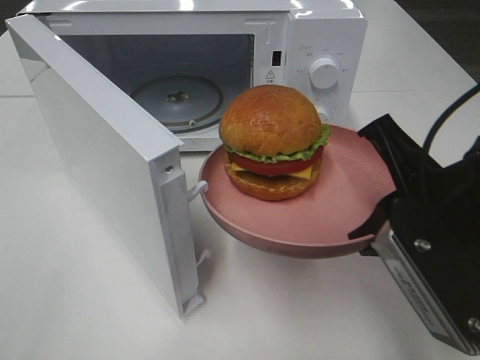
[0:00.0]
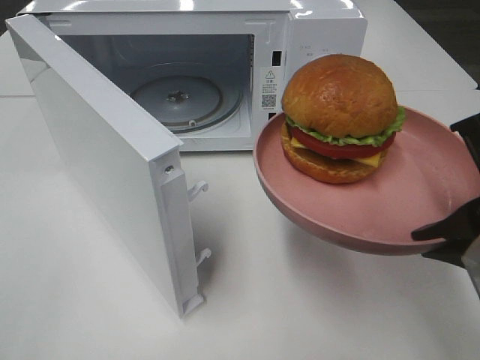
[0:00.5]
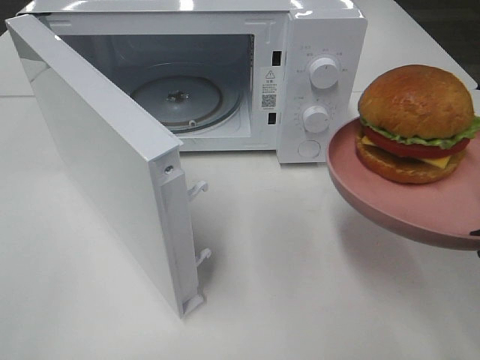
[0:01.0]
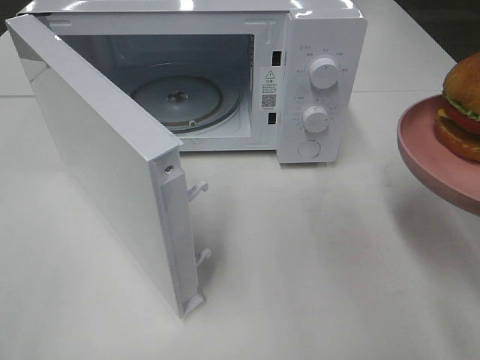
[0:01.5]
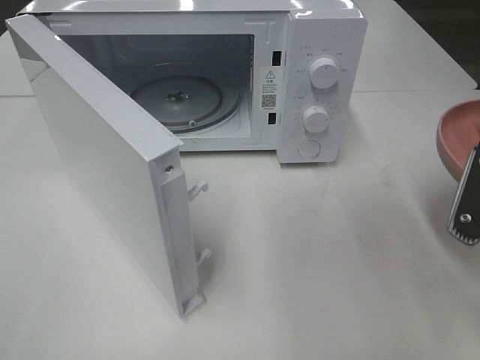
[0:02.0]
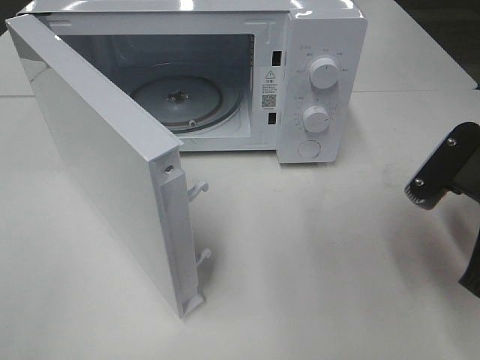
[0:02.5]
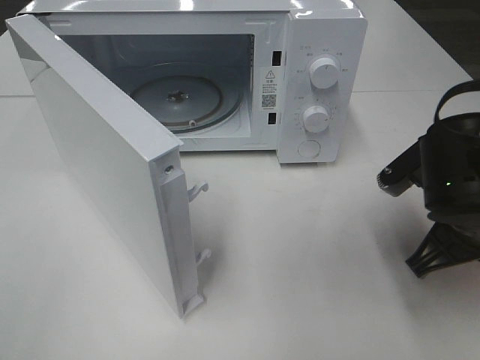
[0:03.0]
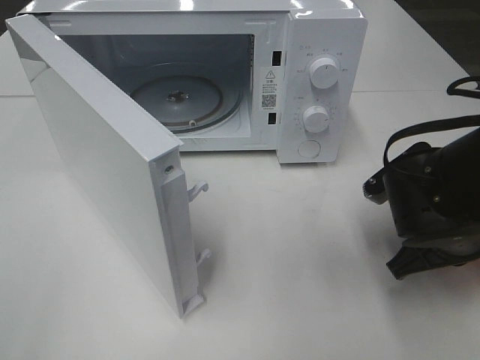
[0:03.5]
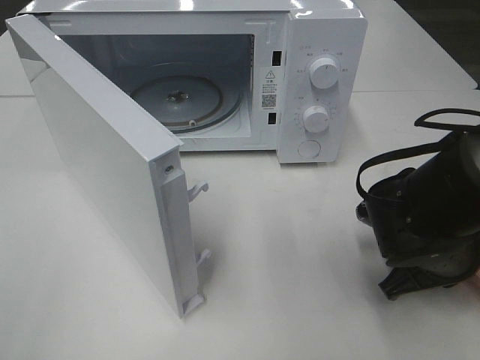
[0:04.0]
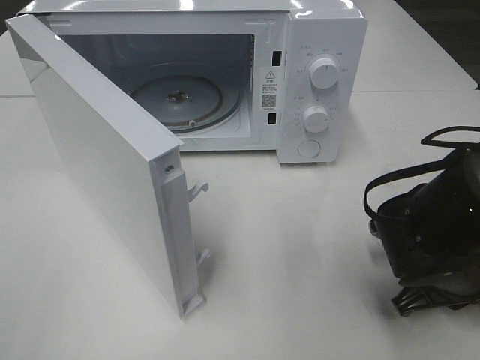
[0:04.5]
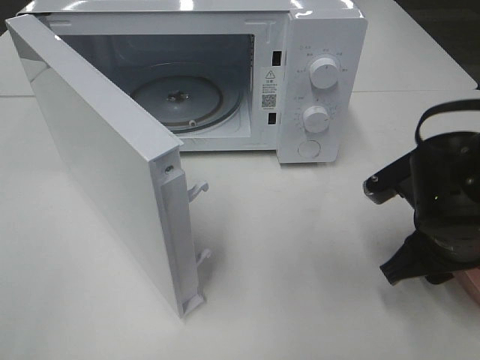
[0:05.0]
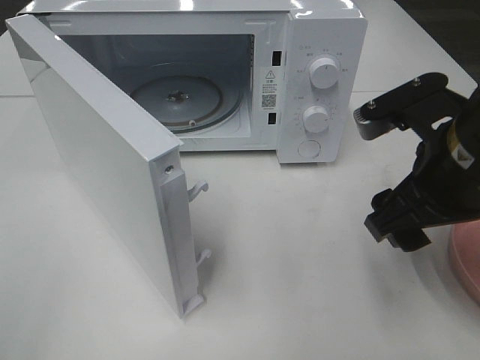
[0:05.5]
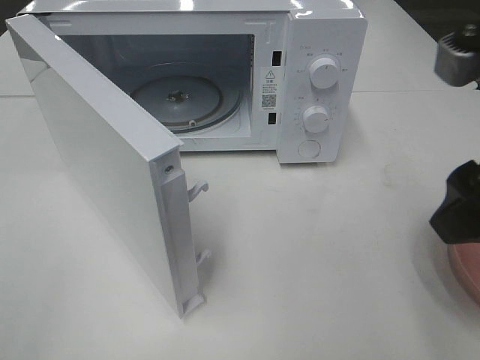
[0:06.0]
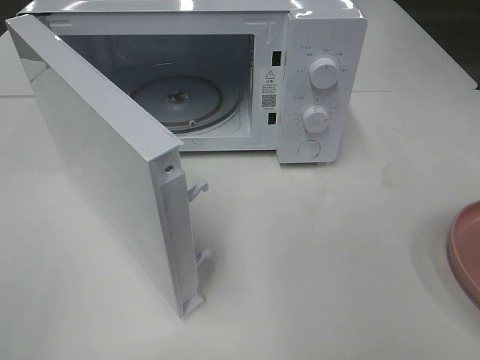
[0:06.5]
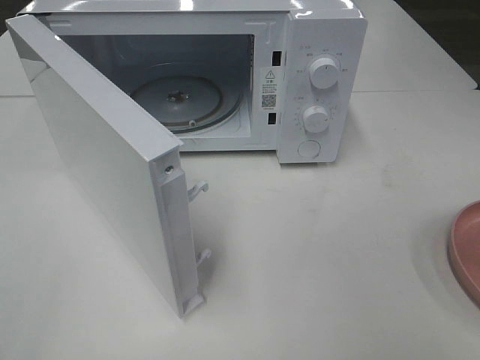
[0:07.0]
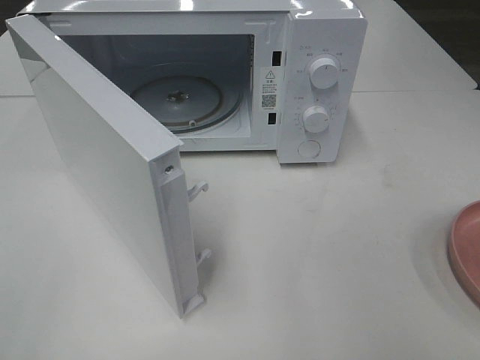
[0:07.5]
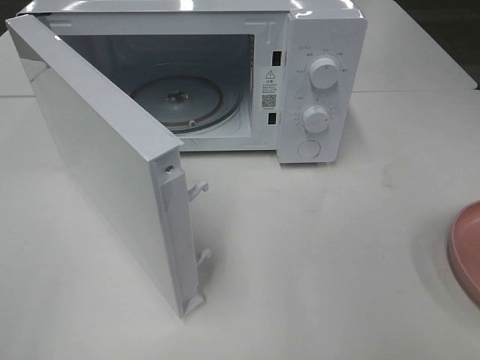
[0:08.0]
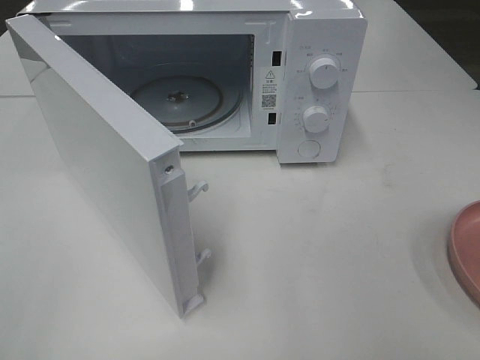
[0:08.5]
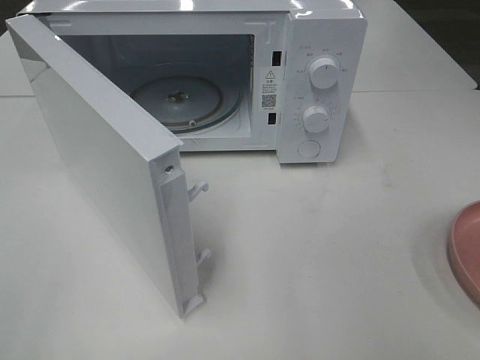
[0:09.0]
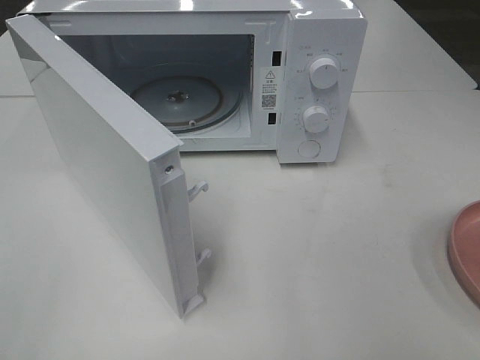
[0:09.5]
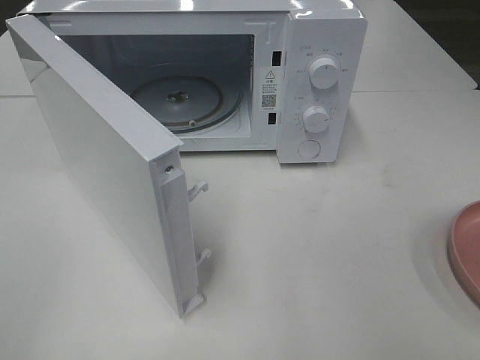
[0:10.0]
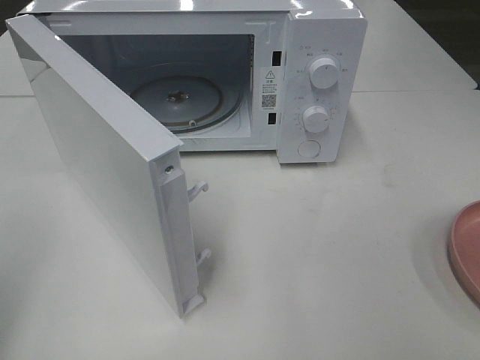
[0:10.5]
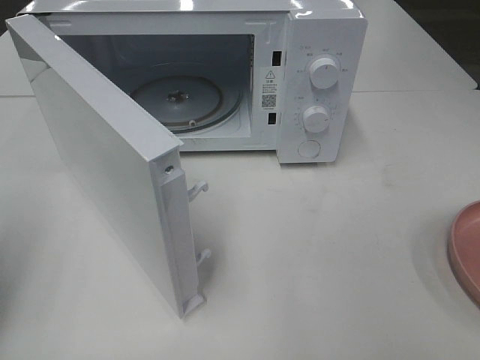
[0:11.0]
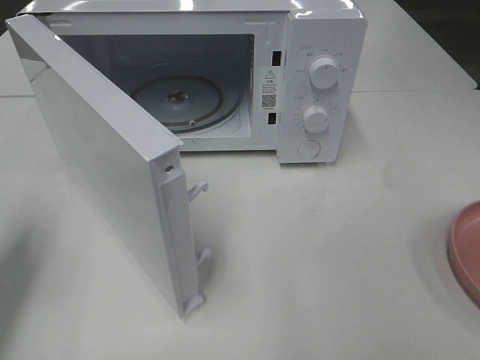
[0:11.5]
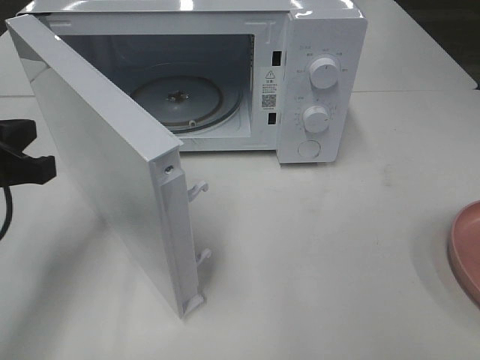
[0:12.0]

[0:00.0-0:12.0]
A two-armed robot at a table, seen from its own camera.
Task of the whole recording: Heat the burger.
Step, 0:00.0 to 0:04.5: Right hand: place the plate on the table.
0:00.0 to 0:02.0: The right gripper heads to the right, covering approximately 5 cm.
0:02.0 to 0:04.0: The right gripper heads downward and forward, covering approximately 15 cm.
0:04.0 to 0:06.0: The right gripper is displaced upward by approximately 20 cm, and opens its fingers.
0:06.0 to 0:08.0: The right gripper is displaced backward and to the right by about 20 cm.
0:10.0 to 0:12.0: The left gripper moves forward and downward, roughly 20 cm, and closes up.

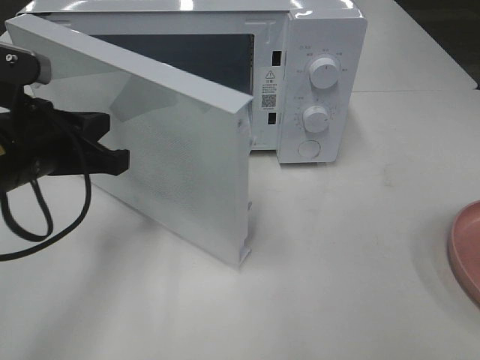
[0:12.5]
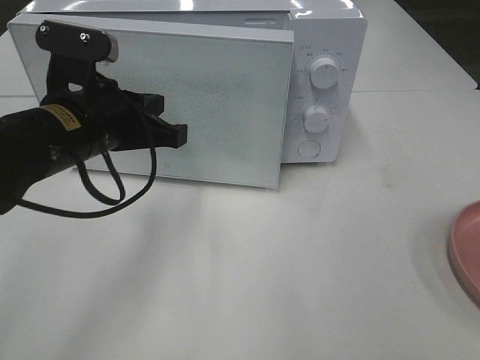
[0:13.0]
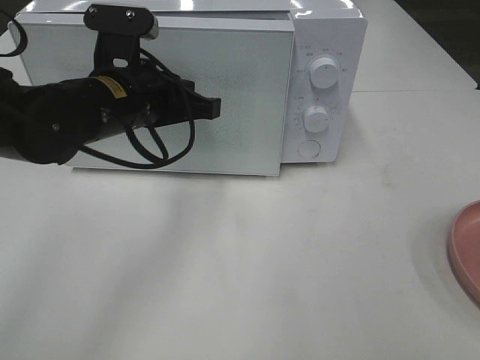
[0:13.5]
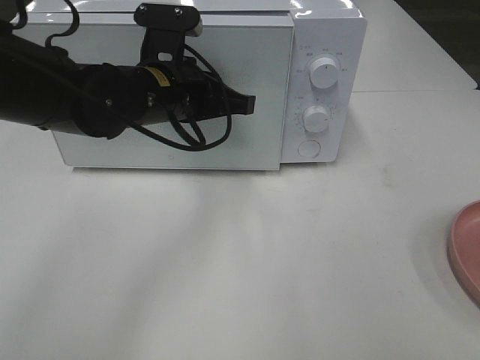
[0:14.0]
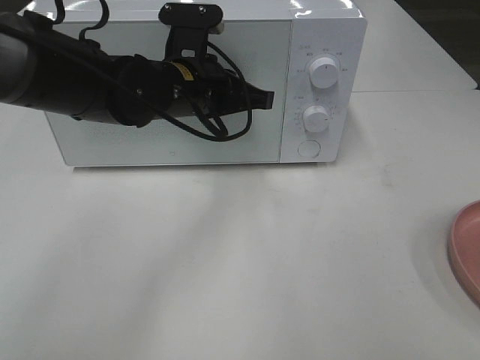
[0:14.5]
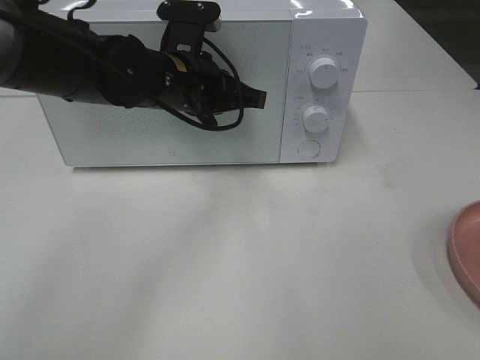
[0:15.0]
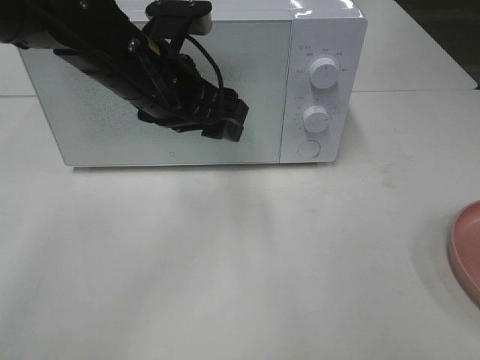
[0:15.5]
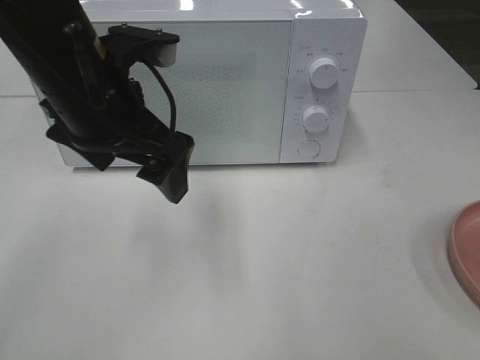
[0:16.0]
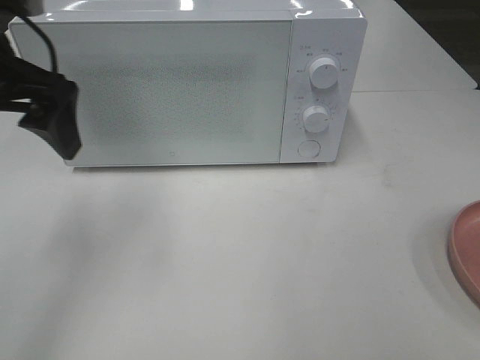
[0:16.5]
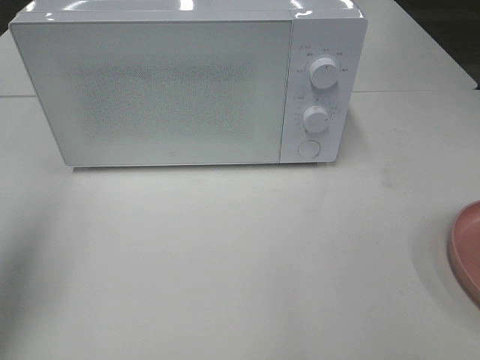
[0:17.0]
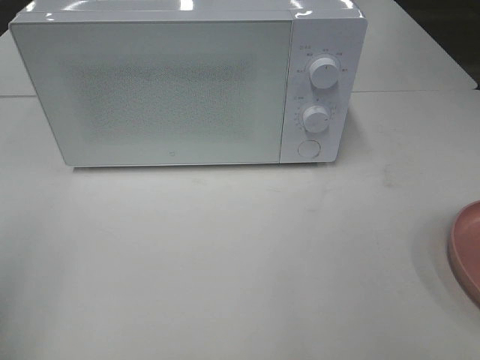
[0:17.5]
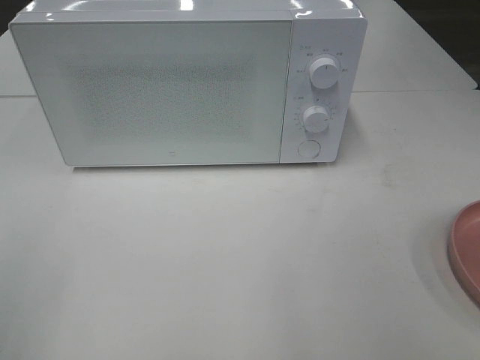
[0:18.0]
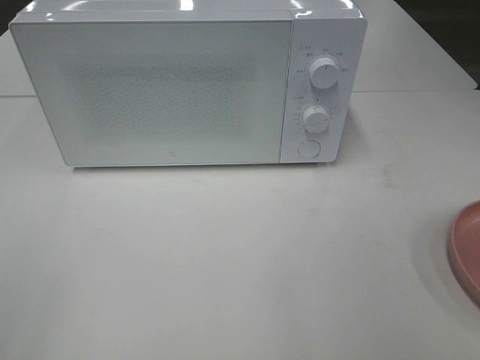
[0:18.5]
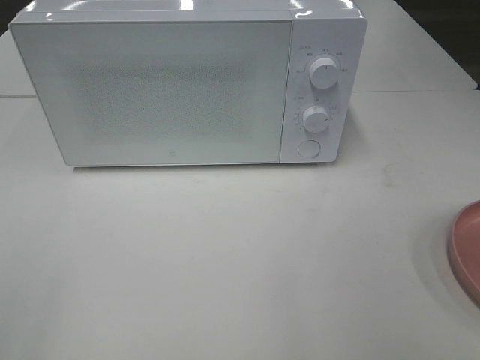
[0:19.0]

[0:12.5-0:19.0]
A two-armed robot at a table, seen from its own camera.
Task of the whole recording: Heat the burger.
Step, 0:12.5 to 0:15.0: Left hand: close the microwave door.
0:12.5 to 0:14.5: The left gripper heads to the right and forward, covering some 20 cm.
0:14.5 to 0:17.0: The left gripper goes roughly 35 cm to the left, backward and upward, and opens its fingers.
0:17.0 to 0:19.0: The left gripper moves backward, about 20 cm.

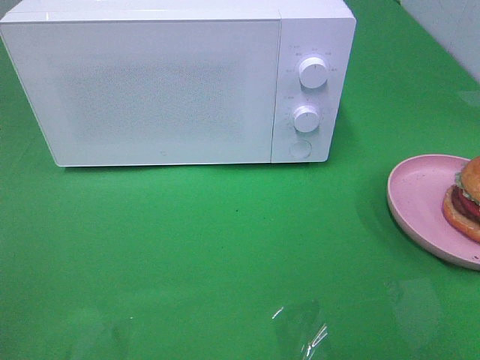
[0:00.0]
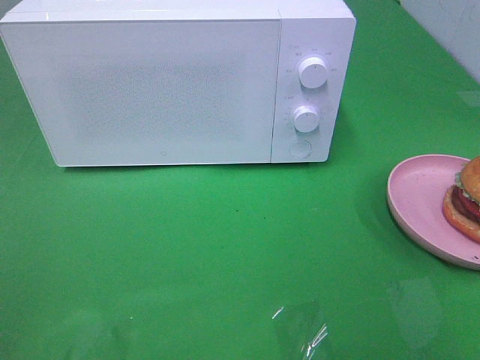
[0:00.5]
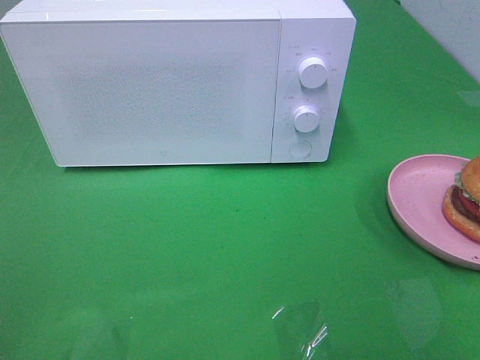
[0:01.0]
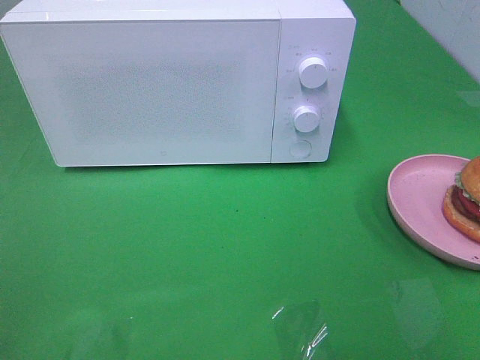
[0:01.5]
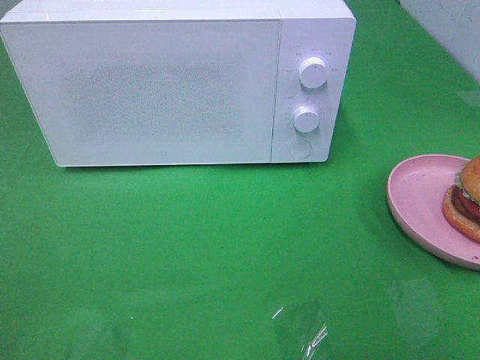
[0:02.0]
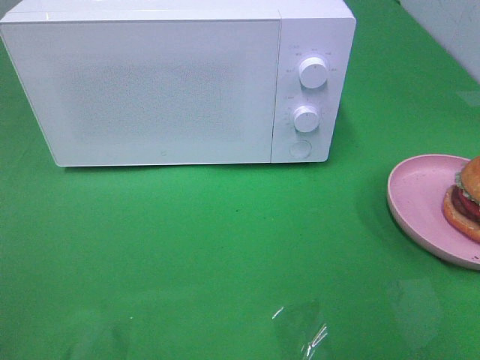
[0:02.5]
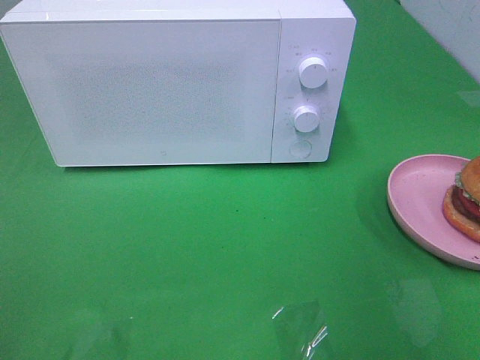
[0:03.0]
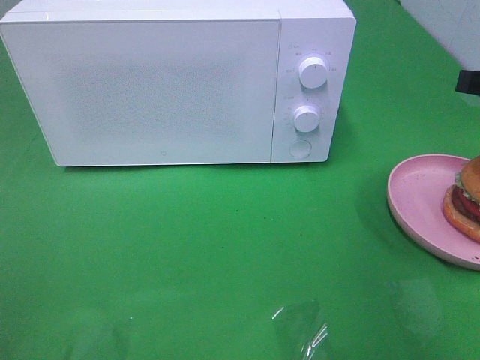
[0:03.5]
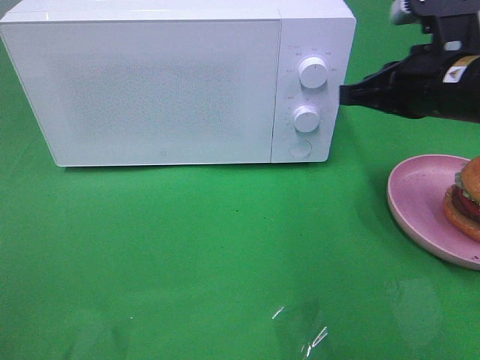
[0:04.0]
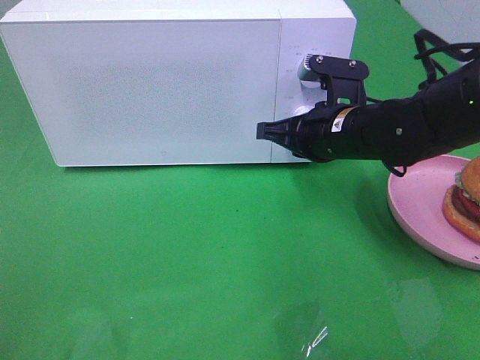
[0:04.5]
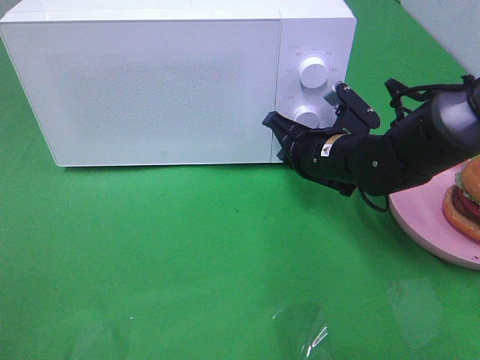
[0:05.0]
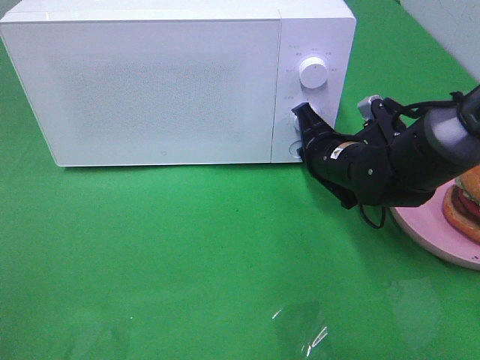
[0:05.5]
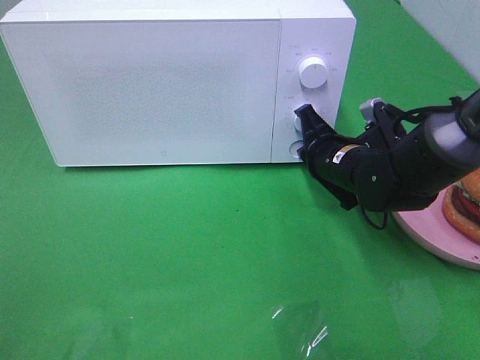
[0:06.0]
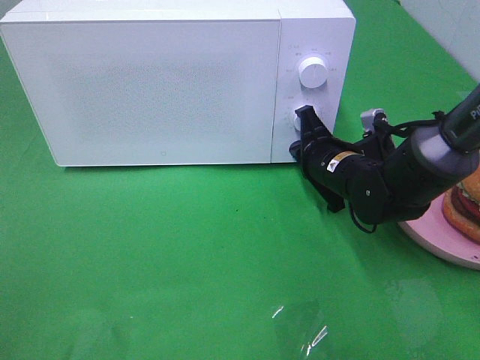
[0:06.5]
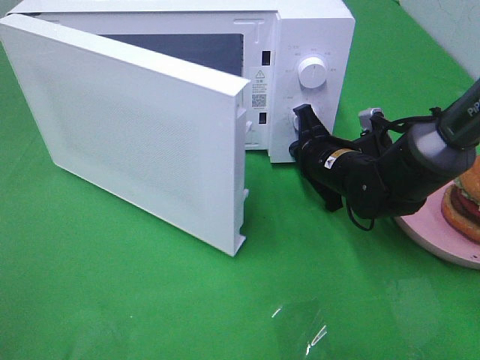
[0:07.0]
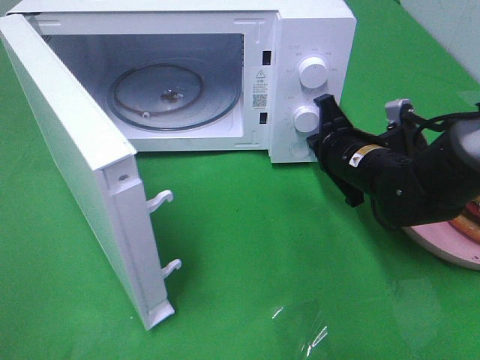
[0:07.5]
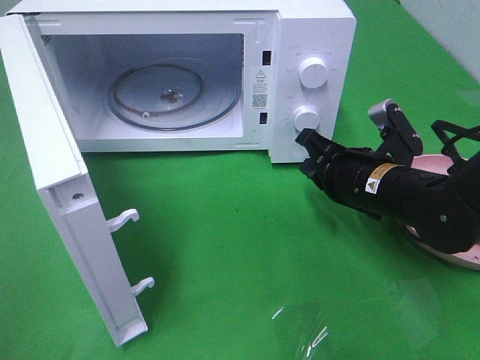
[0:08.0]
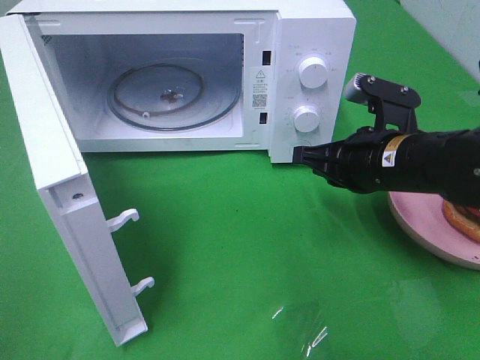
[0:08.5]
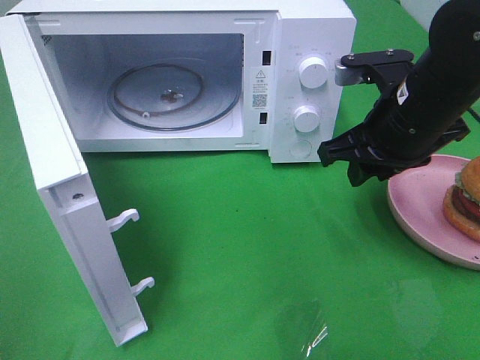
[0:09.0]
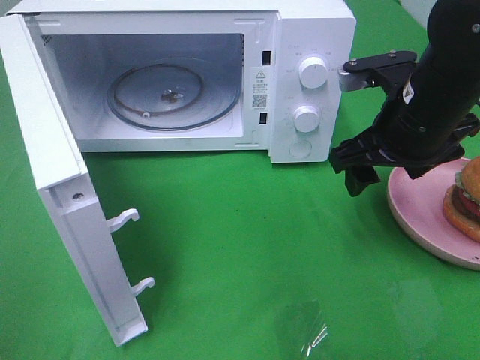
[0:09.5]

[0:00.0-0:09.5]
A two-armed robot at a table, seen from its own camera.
Task of the whole recording: Heat the burger.
Step, 0:00.0 to 0:07.5: Right hand: press the switch.
0:00.0 to 0:02.0: The two grippers keep their place.
0:02.0 to 0:04.0: The right gripper heads forward, covering approximately 30 cm, and closes its fingers.
0:04.0 to 0:05.5: The right gripper shifts roughly 15 cm downward.
0:07.5 to 0:09.5: The right gripper shifts about 10 cm upward, and opens.
